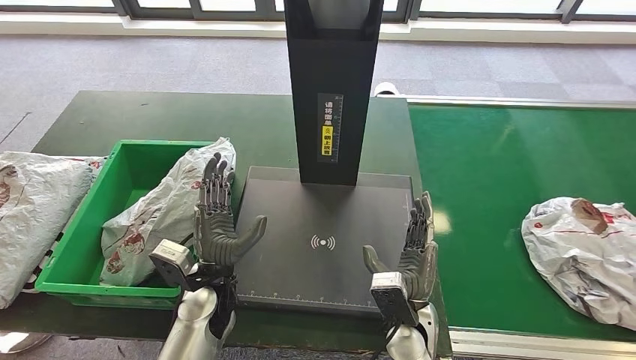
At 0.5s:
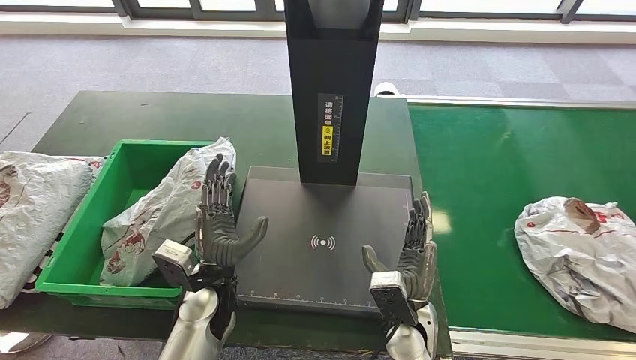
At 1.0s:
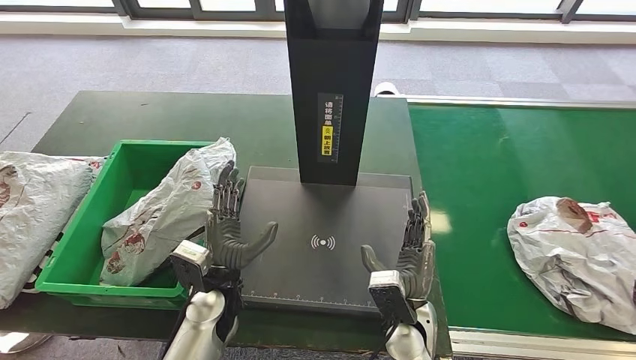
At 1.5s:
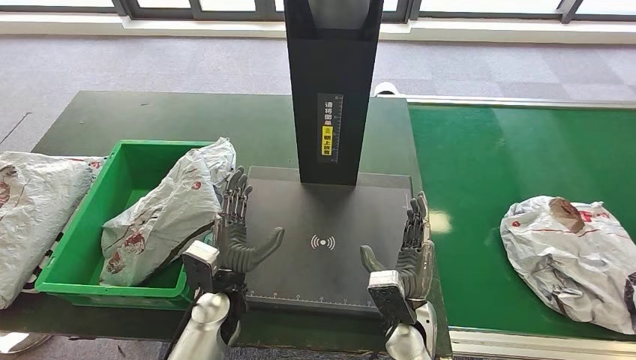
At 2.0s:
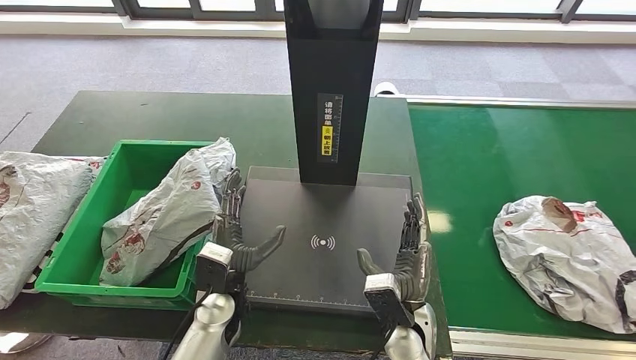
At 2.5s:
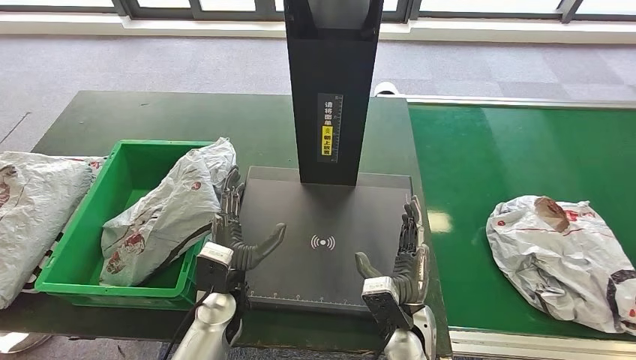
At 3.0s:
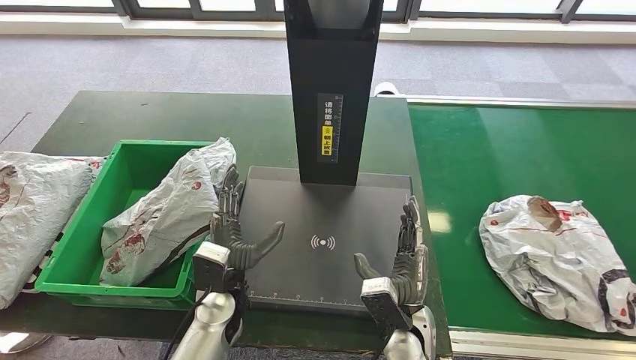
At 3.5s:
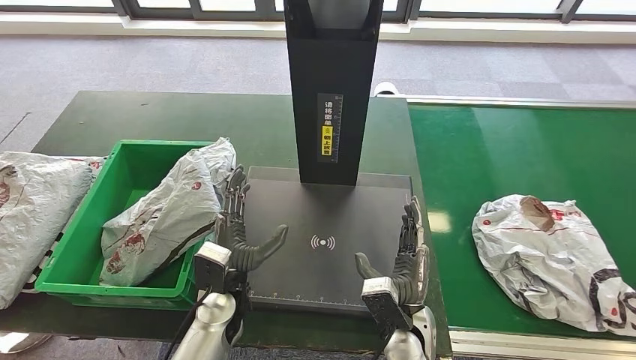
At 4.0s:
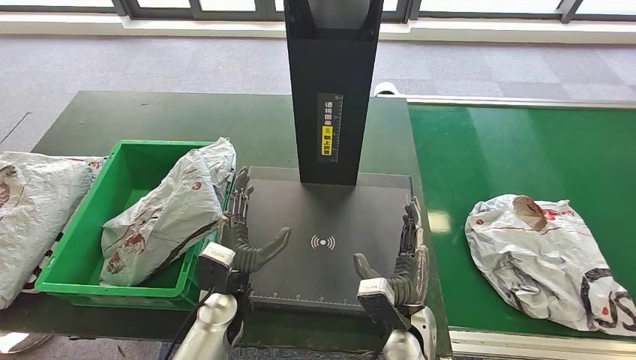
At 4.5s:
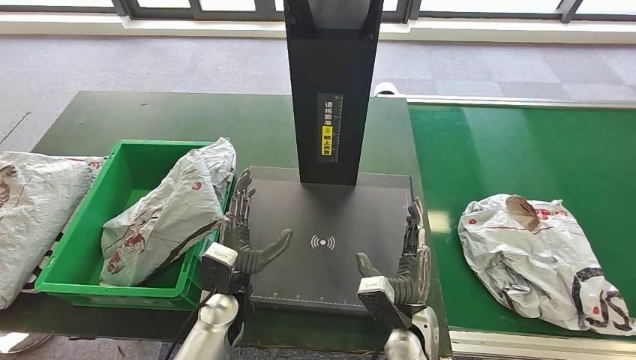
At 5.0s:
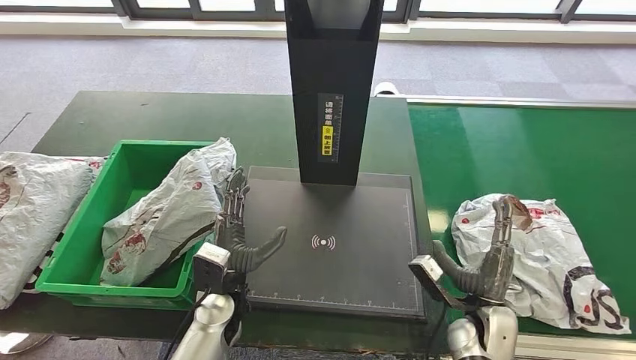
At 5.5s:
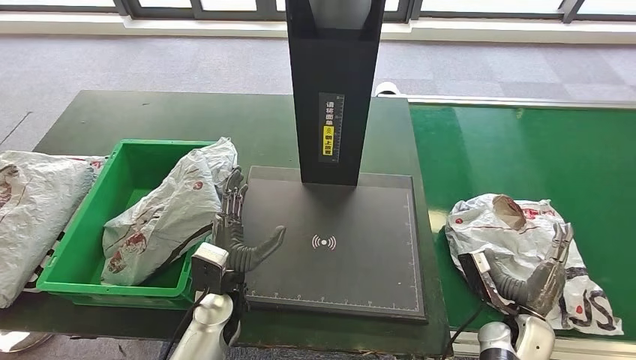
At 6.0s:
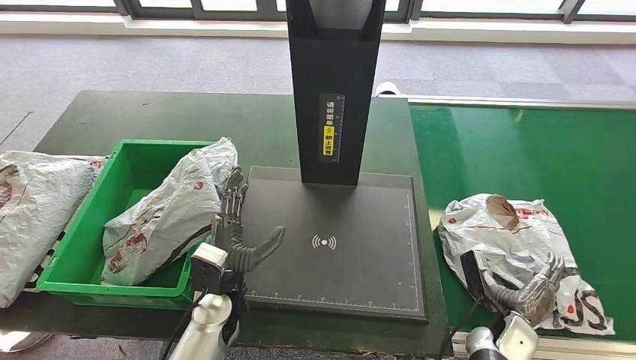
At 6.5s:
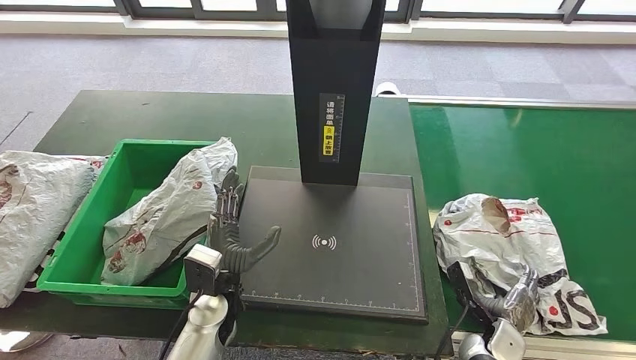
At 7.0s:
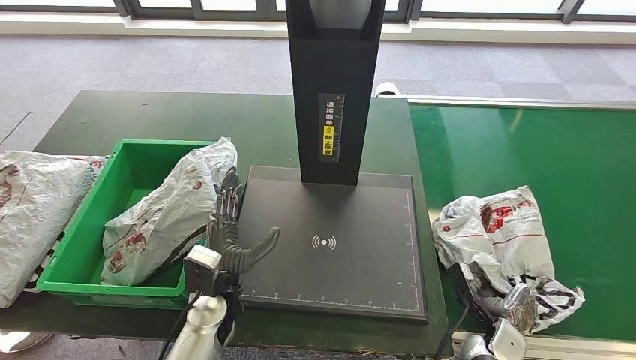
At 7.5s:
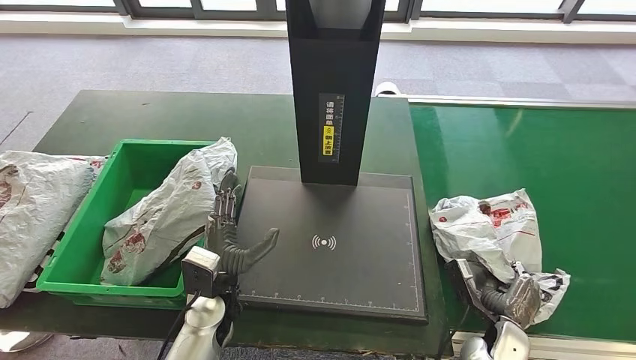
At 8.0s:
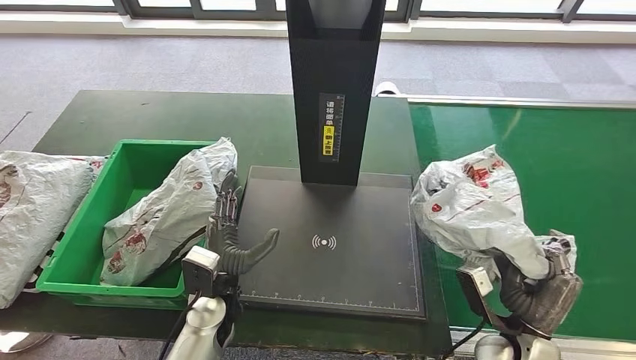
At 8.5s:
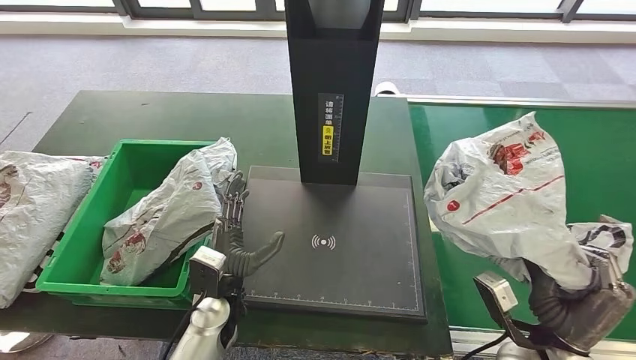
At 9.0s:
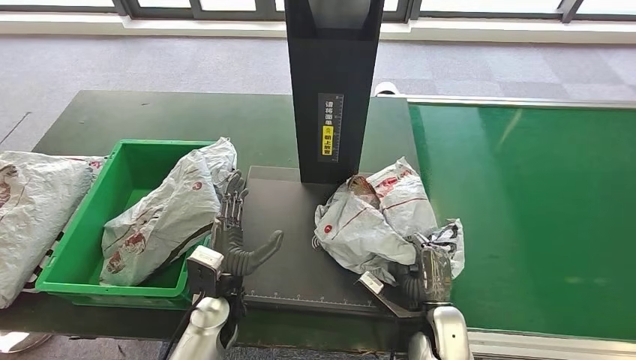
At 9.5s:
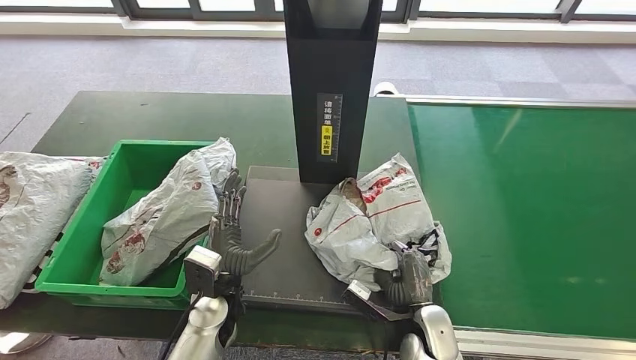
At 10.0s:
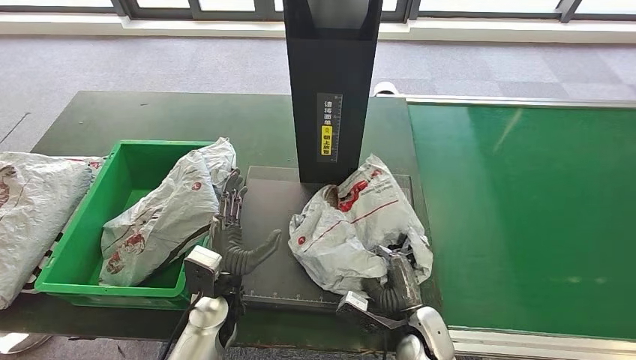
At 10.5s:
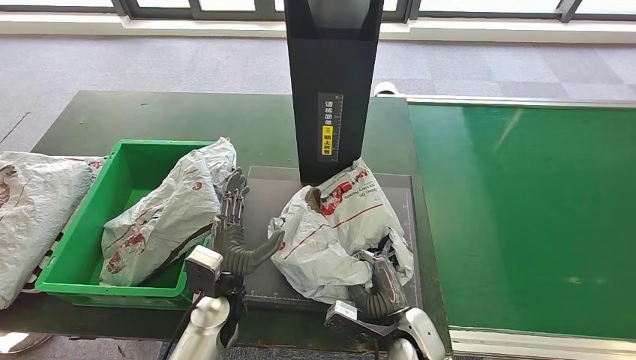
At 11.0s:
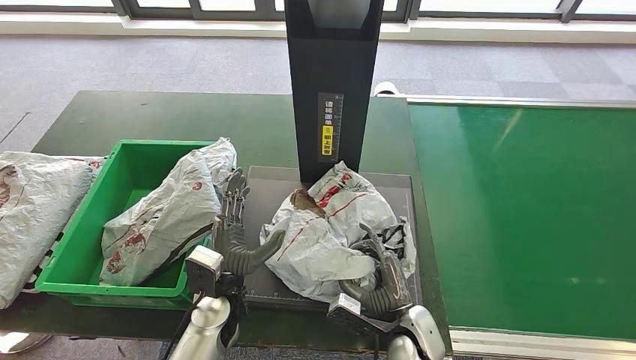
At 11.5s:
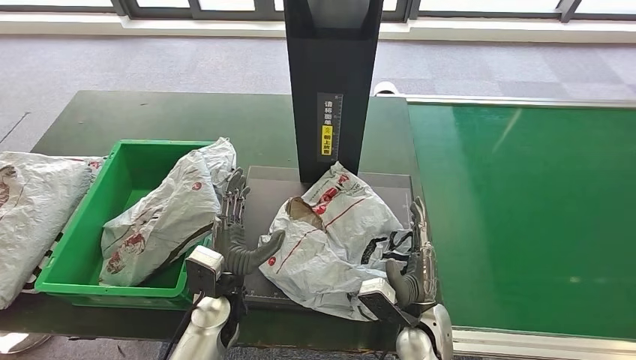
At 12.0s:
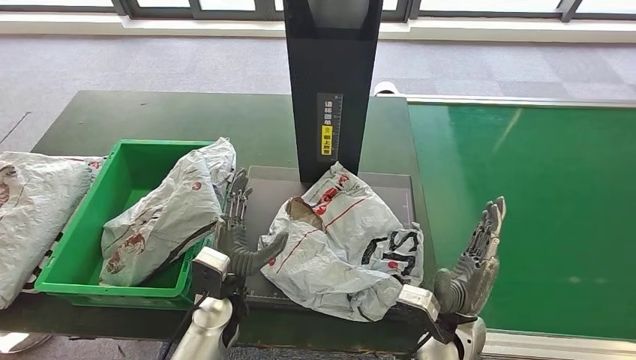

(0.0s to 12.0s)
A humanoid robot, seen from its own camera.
Step, 5.5s - 8.0s: Pick up the parcel from the conveyor belt.
Step, 8.5s - 10.5s: Place the parcel onto the inbound machine.
0.0s - 2.0s: The hands make only small movements.
2.0s - 4.0s: Both hands stay put.
4.0s - 6.0s: The right hand shifts approximately 20 cm to the right.
6.0s - 8.0s: The right hand is displaced upward by roughly 5 cm.
10.0s - 12.0s: The right hand moves upward, about 10 cm.

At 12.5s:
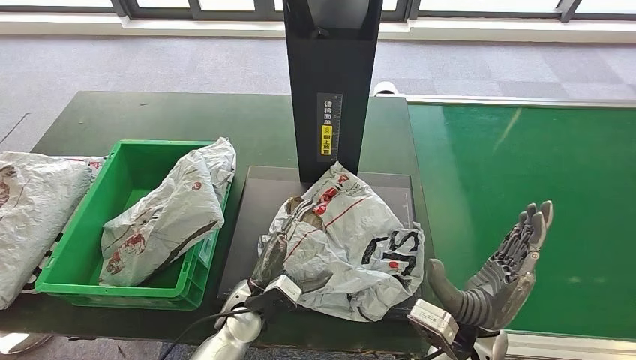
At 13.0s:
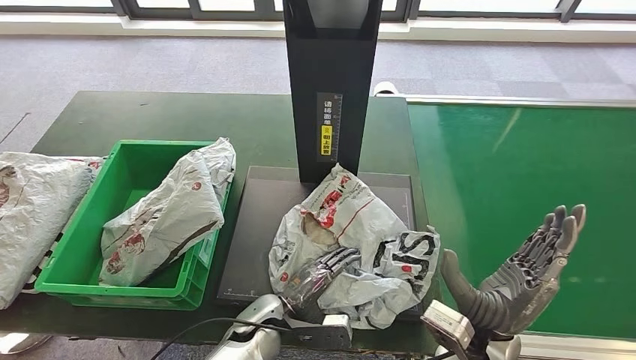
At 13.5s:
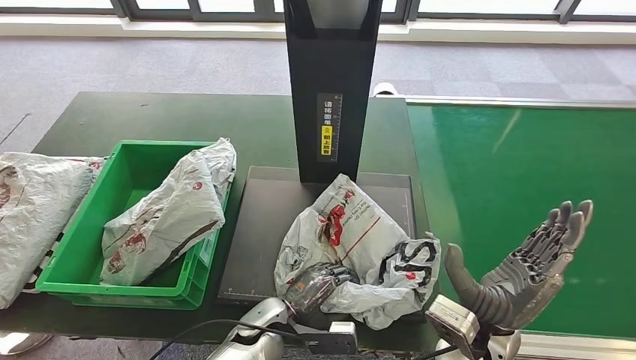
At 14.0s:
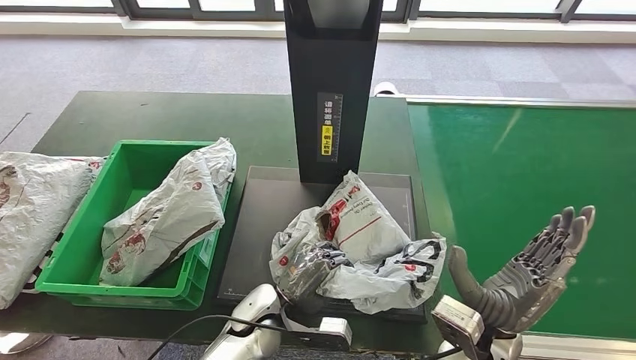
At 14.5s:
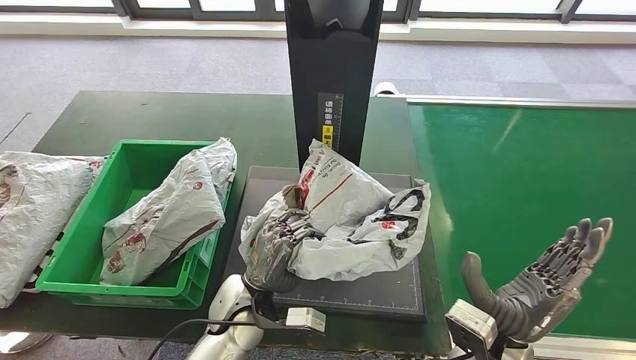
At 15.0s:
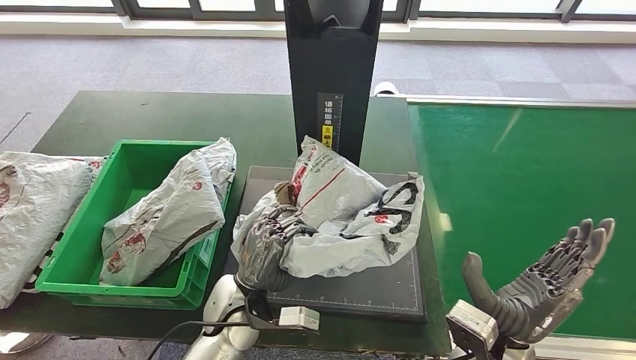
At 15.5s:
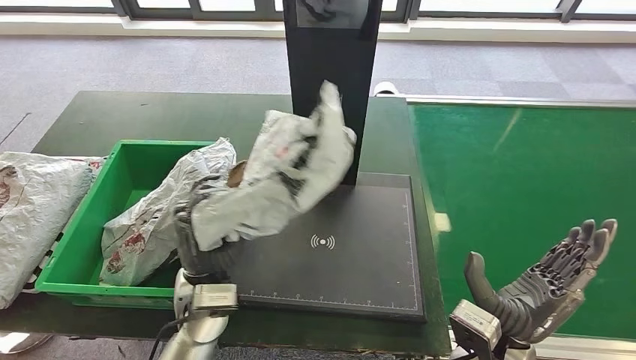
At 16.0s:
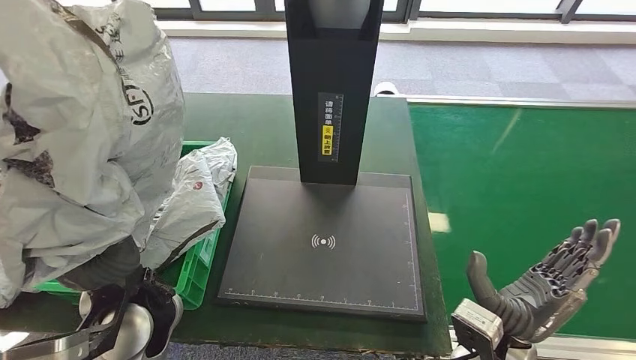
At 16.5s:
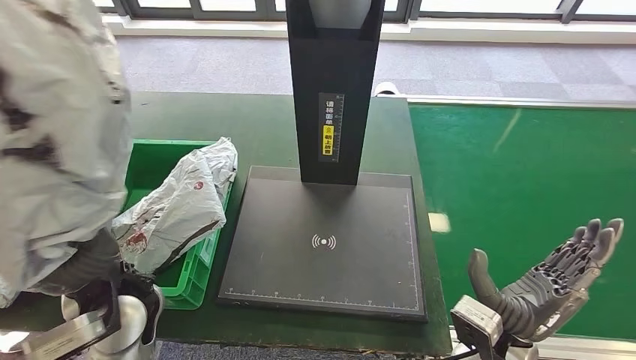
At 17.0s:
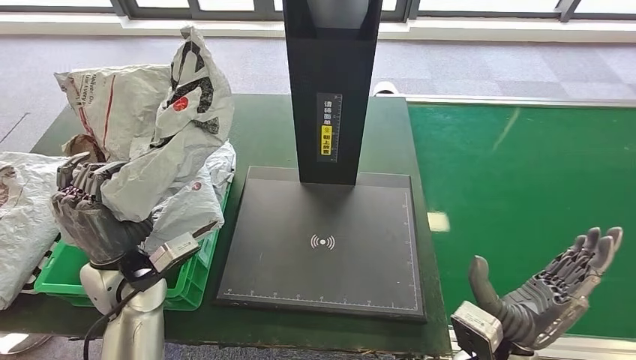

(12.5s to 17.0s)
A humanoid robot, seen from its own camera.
Step, 12.5s - 14.5s: Pick up the parcel from the inbound machine.
Step, 15.0s - 17.0s: Place the parcel into the delivery box.
